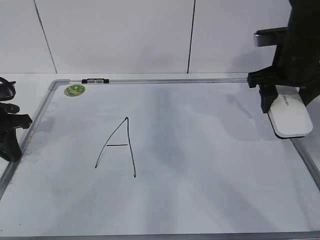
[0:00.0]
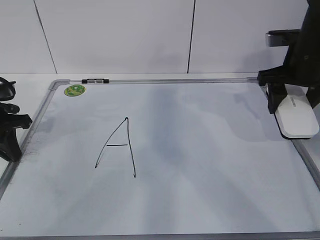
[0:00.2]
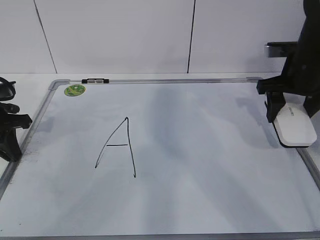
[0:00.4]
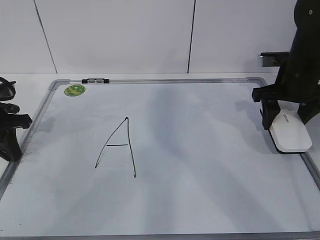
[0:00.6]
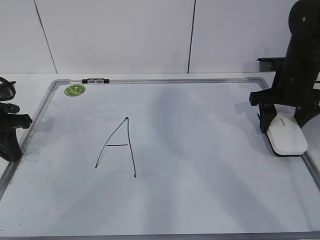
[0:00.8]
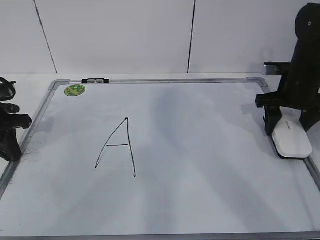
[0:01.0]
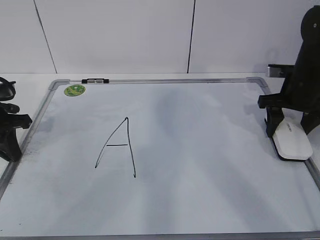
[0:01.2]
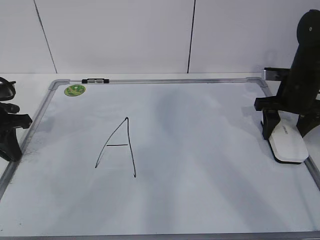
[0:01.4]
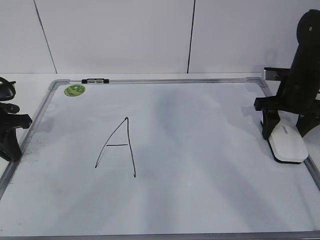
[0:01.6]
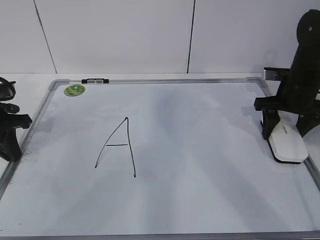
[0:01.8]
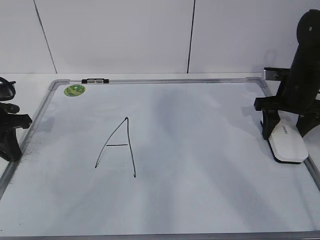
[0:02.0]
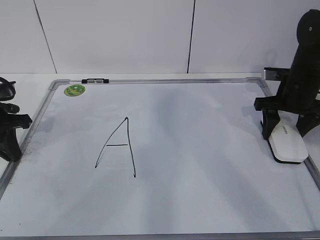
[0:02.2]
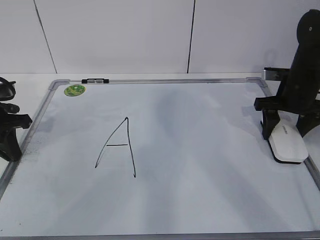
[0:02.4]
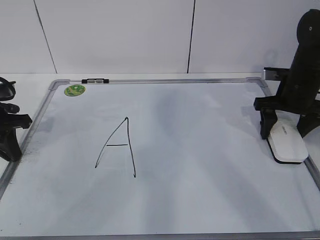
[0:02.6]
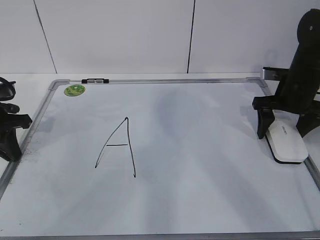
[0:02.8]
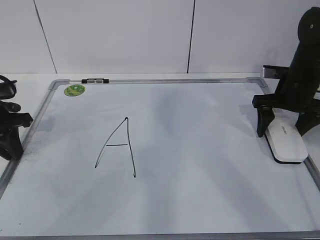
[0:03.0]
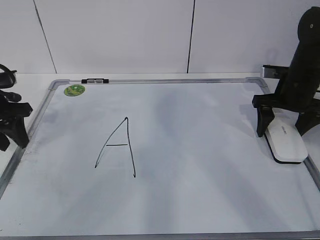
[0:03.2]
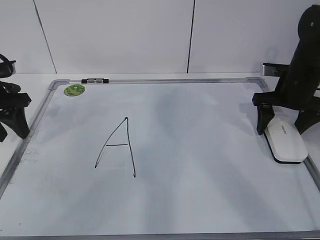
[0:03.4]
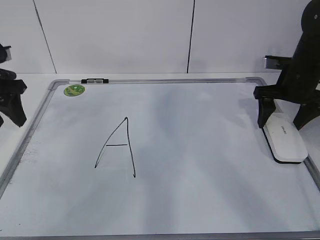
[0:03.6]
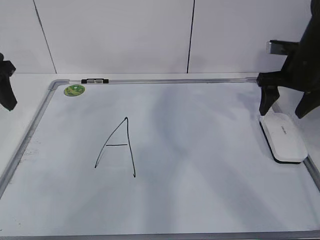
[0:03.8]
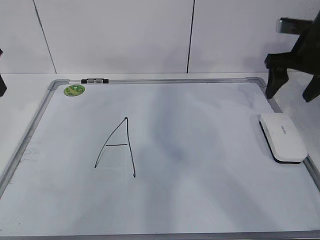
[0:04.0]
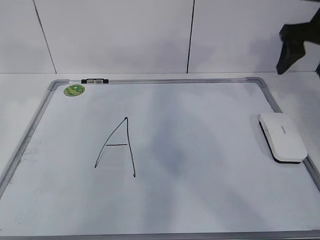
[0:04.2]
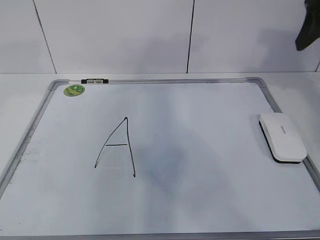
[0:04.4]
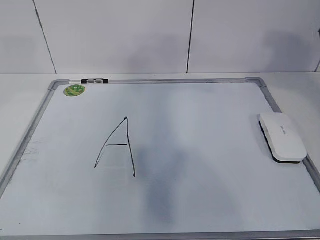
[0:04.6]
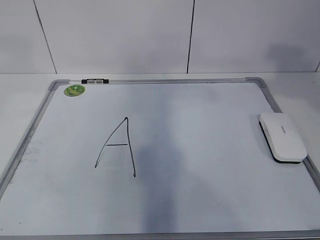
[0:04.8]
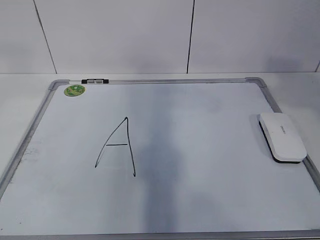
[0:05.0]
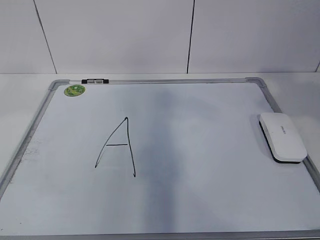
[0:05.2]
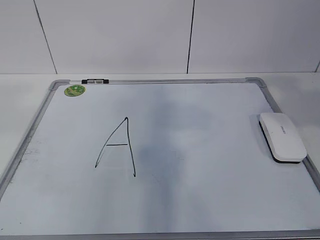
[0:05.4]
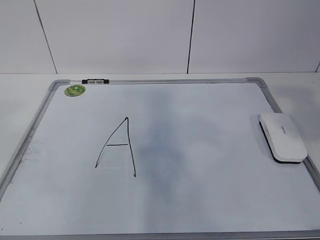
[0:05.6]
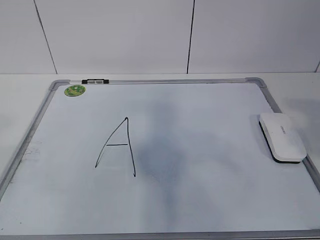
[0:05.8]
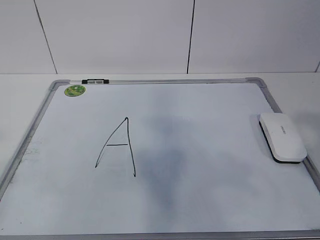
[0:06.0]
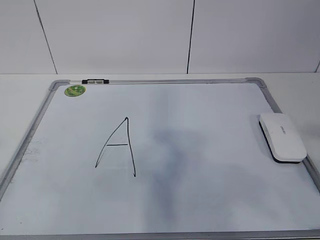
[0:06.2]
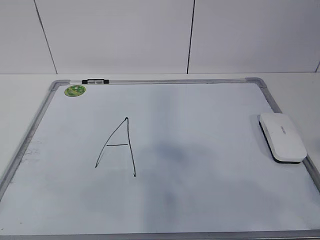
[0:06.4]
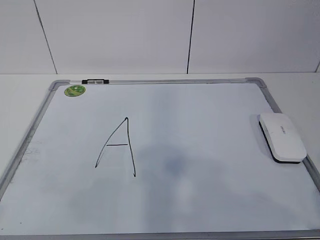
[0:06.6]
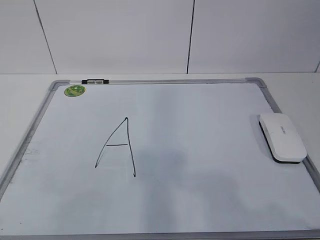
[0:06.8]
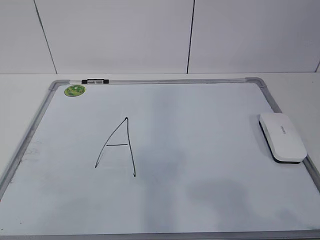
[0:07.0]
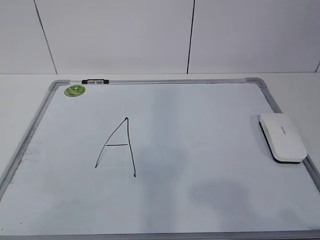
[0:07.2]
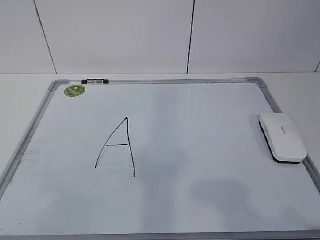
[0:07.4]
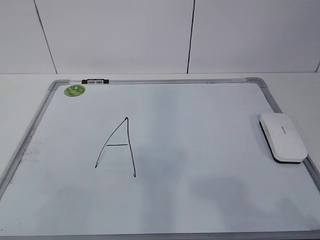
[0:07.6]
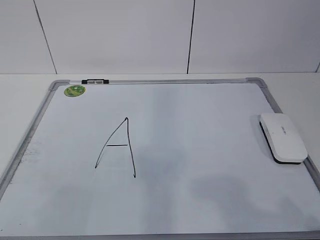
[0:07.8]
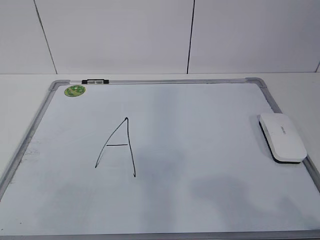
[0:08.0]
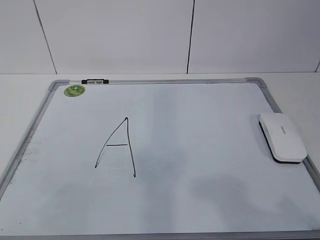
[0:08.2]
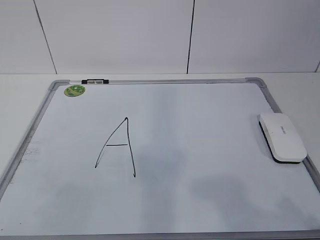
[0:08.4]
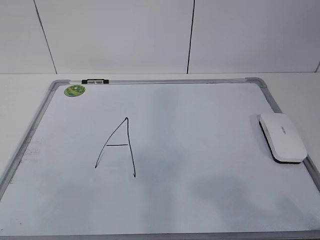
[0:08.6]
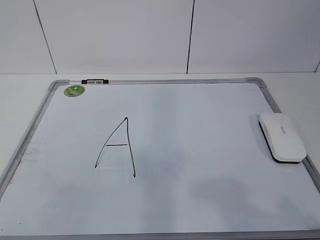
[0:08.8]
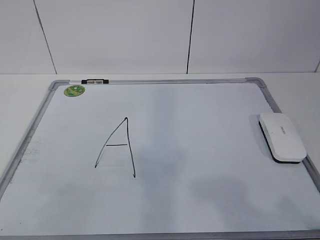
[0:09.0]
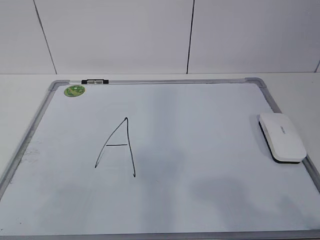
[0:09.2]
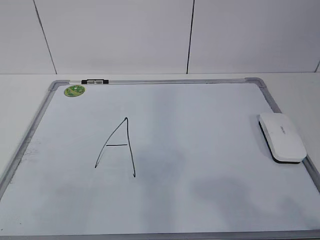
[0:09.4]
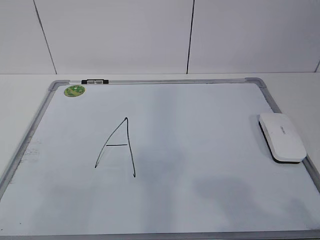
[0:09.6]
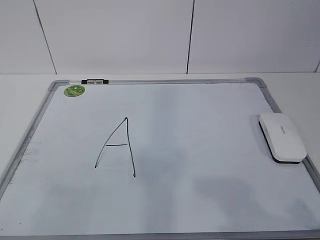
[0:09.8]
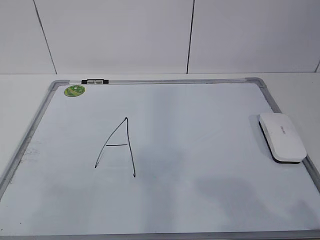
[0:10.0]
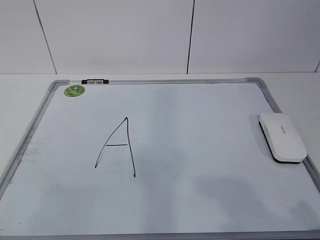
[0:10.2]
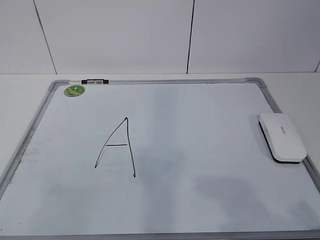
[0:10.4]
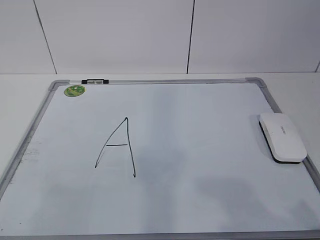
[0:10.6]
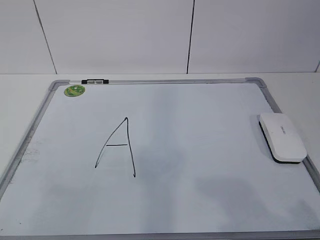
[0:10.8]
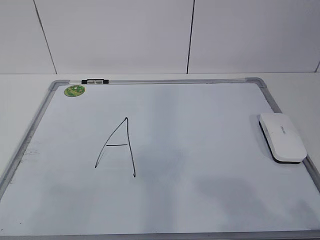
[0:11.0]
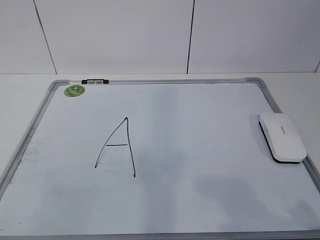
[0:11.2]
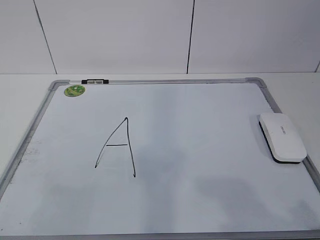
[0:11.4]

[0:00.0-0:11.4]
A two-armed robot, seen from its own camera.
Task of the whole recording: pick up the eraser on the blackboard and erase the letter "a".
0:00.0 to 0:01.4: The right gripper shifts about 10 cm downward.
0:01.4 to 0:02.8: The right gripper opens.
0:02.8 to 0:04.2: Both grippers move upward, roughly 15 cm. The left gripper opens its fingers.
0:04.2 to 0:05.6: The grippers both shift backward by approximately 25 cm. The right gripper closes up.
0:05.6 to 0:07.2: The right gripper goes approximately 20 cm backward and downward, while the left gripper is displaced downward and backward by roughly 15 cm.
0:10.0 to 0:11.4: Both grippers stay about where they are.
